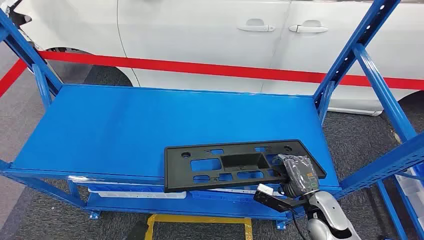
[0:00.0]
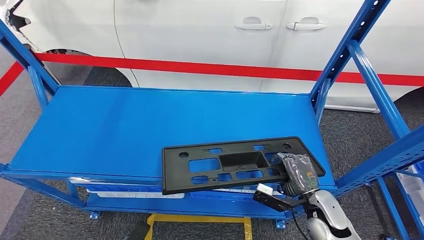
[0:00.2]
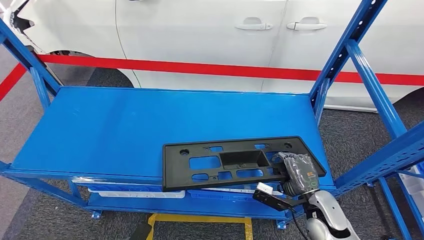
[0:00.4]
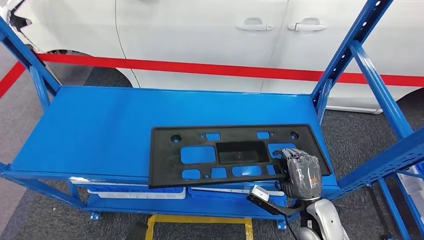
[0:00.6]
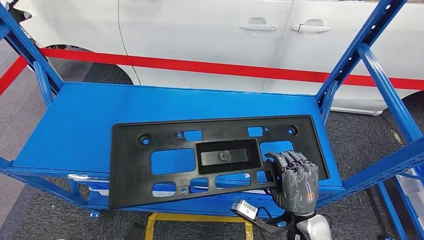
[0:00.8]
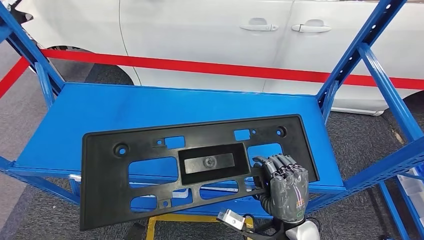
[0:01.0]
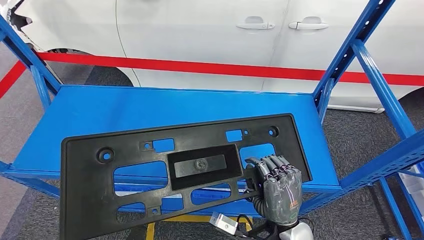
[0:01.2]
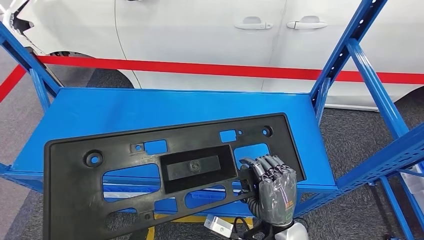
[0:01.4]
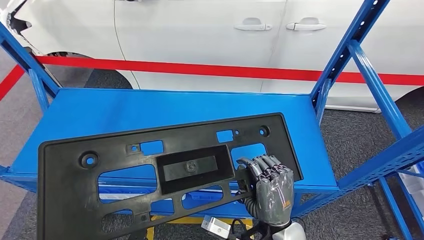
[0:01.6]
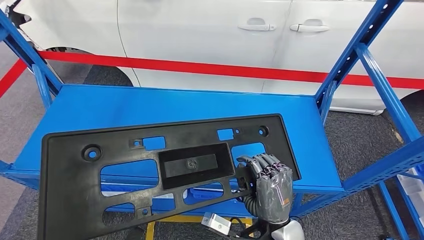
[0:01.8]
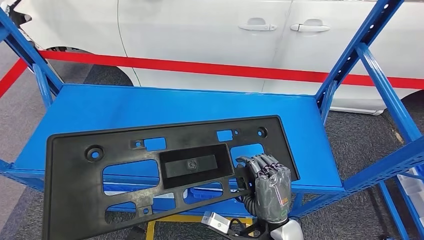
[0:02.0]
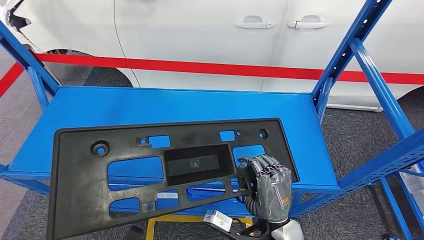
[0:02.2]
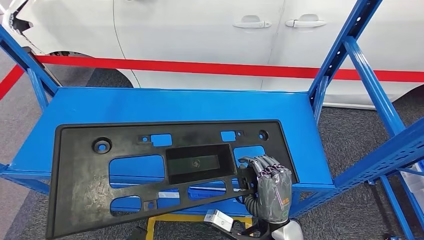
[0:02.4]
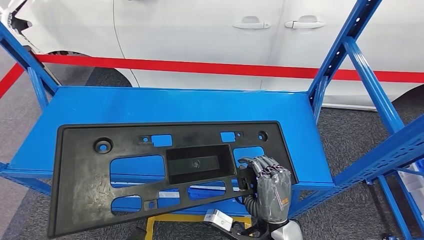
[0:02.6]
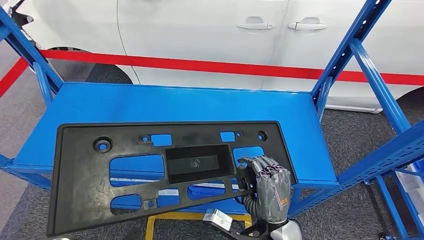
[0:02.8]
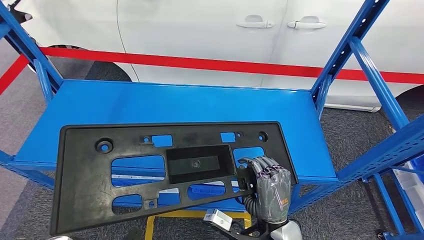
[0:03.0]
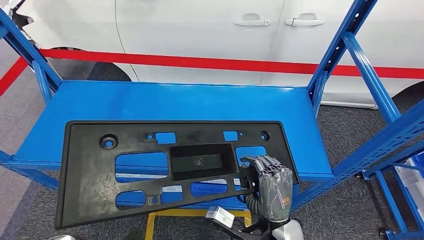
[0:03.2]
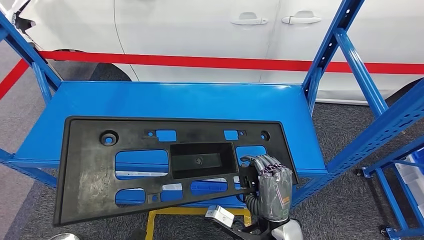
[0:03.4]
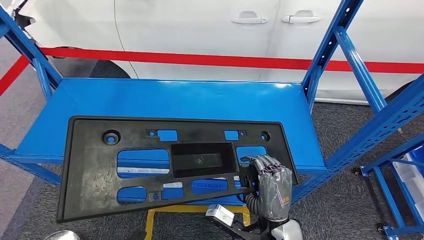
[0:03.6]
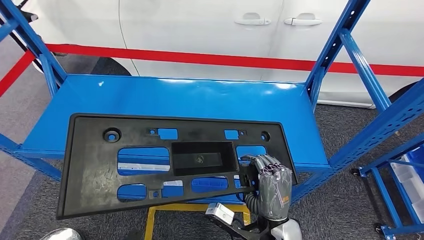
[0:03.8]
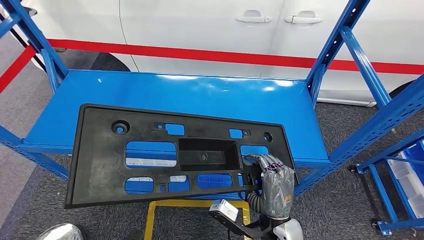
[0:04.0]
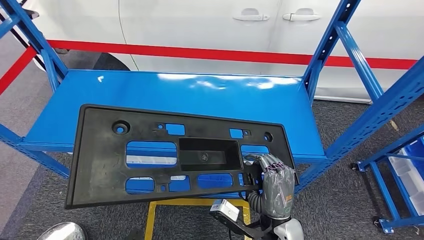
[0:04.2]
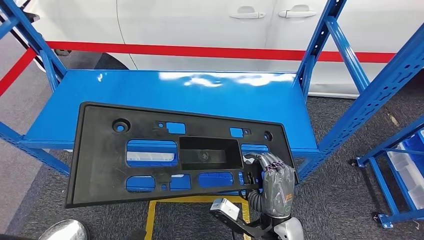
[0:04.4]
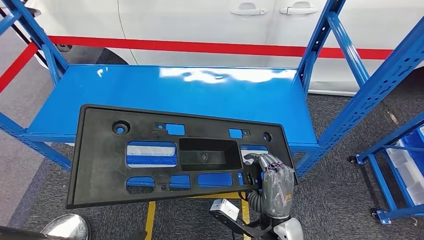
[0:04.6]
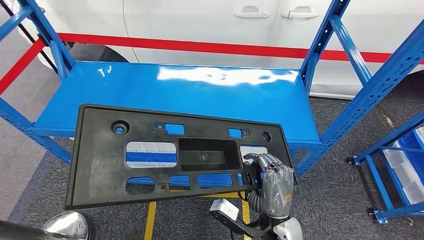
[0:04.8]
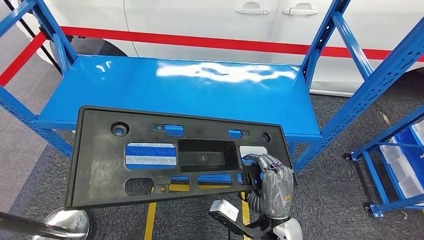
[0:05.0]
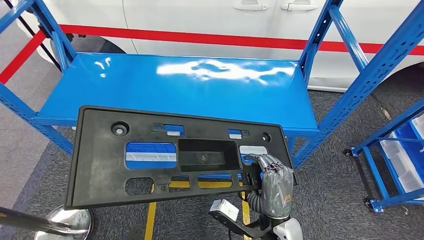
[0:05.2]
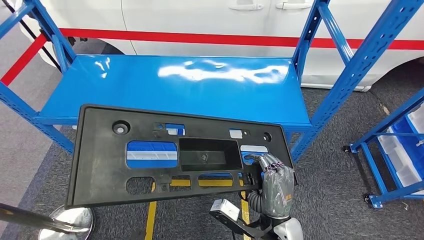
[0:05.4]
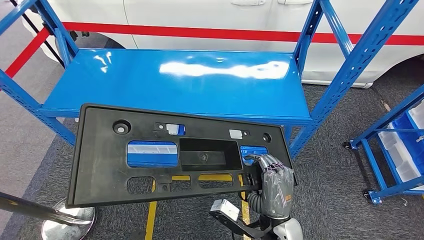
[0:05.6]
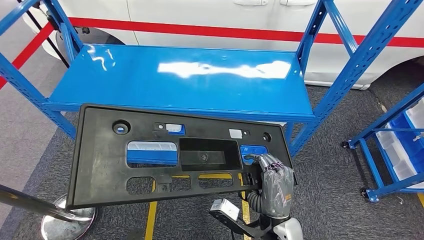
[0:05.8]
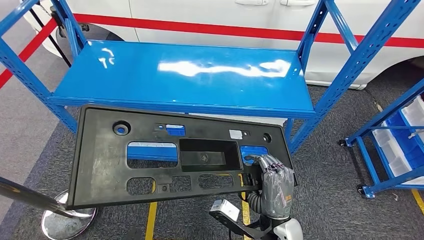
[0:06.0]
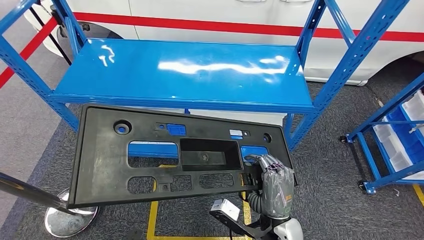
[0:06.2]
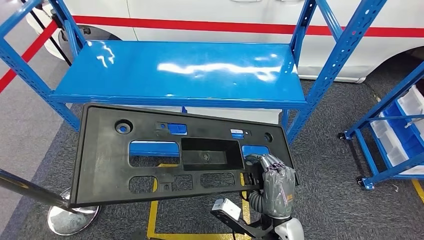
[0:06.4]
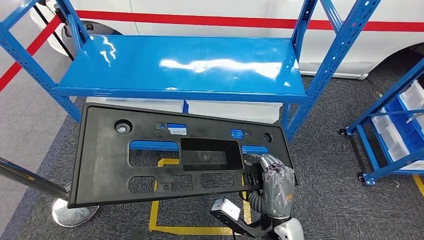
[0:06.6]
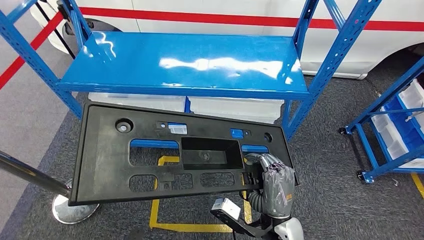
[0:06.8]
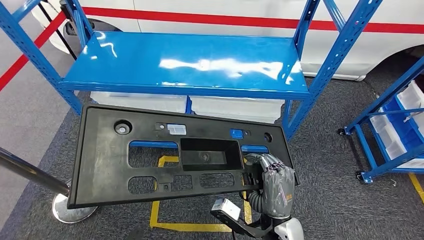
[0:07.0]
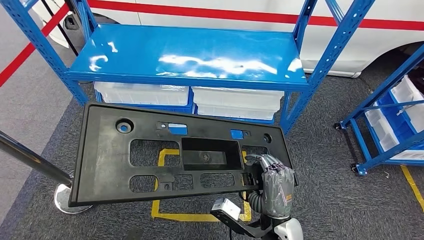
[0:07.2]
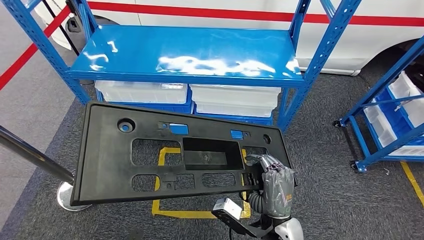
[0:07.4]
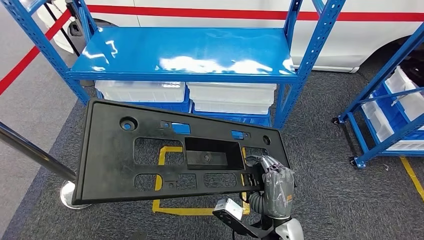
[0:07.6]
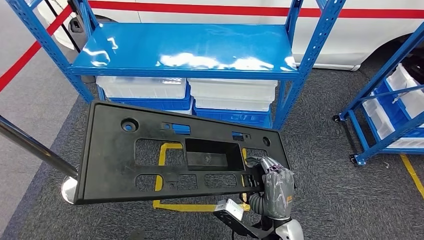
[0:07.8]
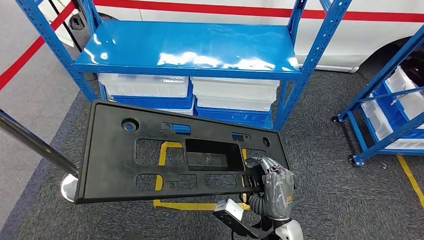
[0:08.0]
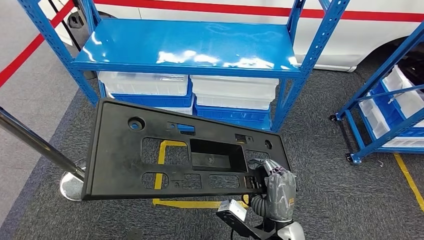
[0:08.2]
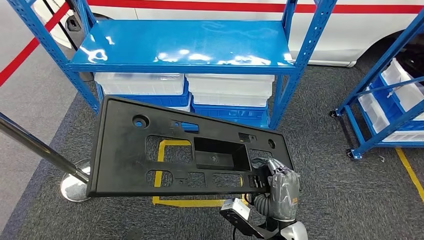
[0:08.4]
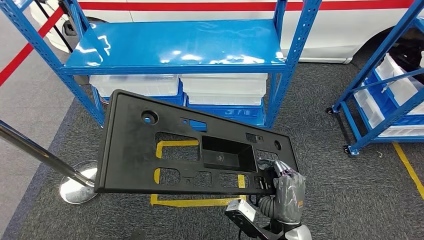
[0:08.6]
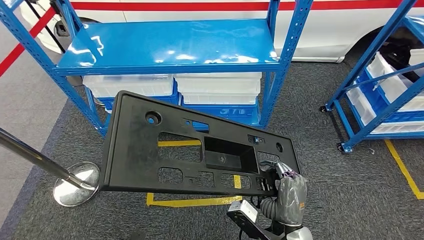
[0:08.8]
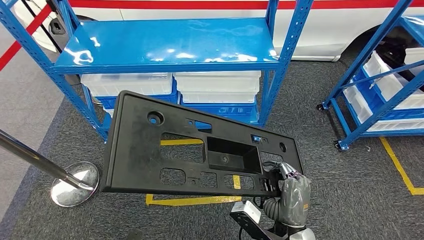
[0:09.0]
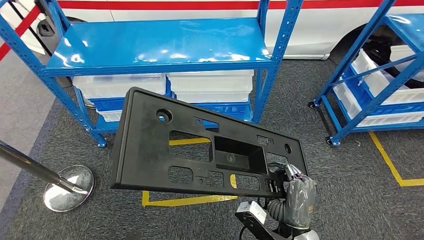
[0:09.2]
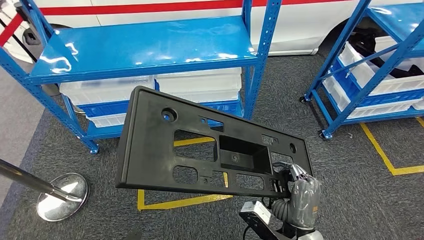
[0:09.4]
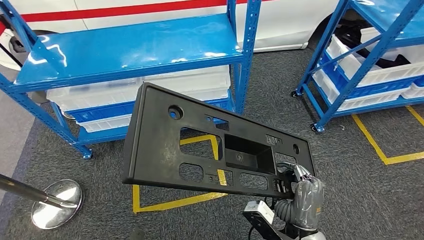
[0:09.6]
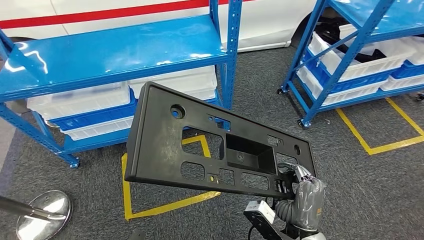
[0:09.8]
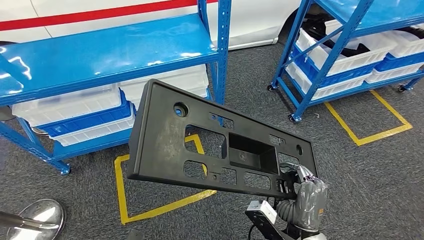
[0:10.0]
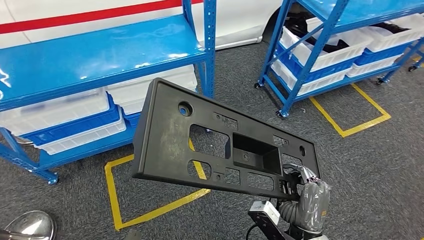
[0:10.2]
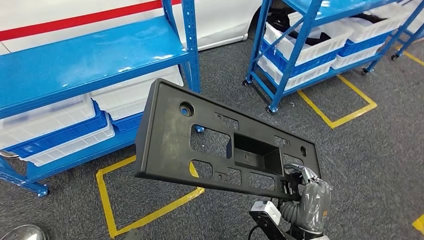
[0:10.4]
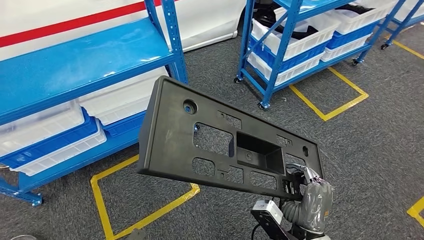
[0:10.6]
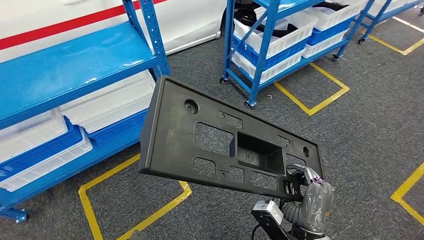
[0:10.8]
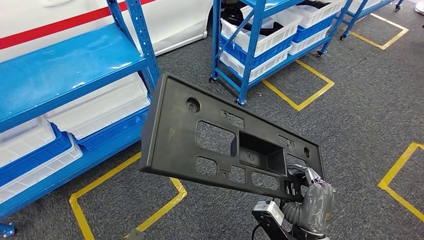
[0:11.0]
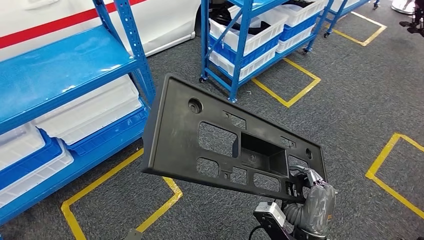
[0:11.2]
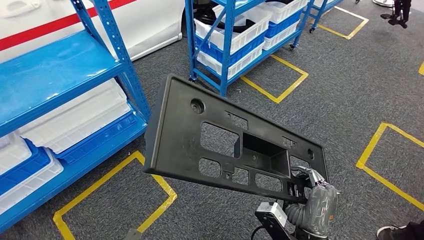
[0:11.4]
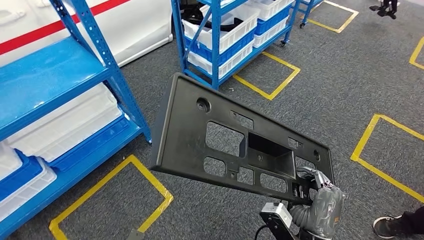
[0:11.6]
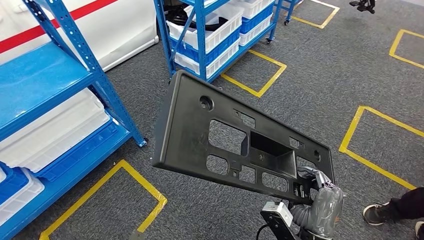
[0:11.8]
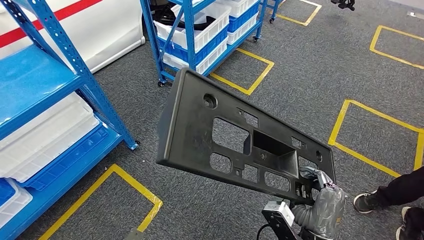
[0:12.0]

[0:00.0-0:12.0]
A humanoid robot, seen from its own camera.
Step, 0:00.0 to 0:05.0: Pick up the large material from the shelf.

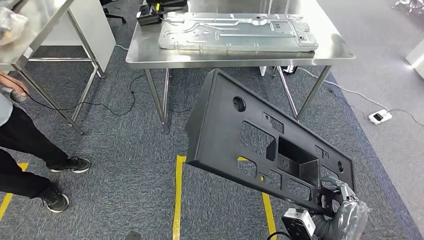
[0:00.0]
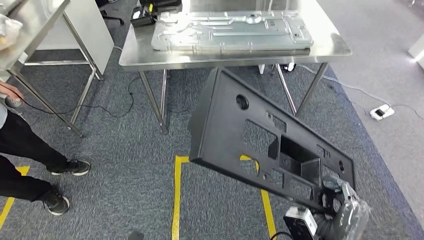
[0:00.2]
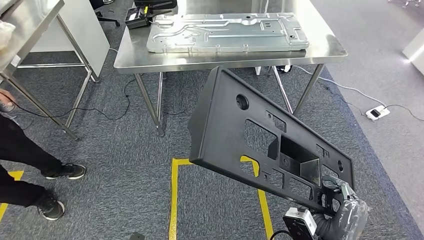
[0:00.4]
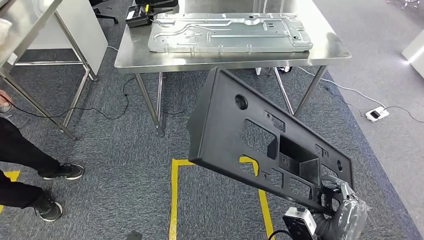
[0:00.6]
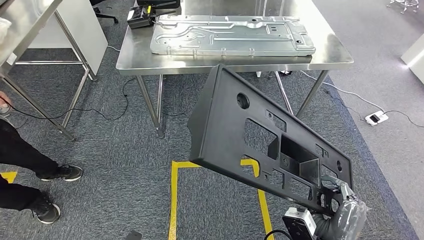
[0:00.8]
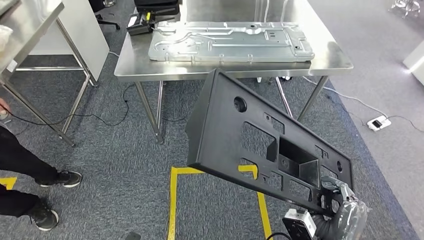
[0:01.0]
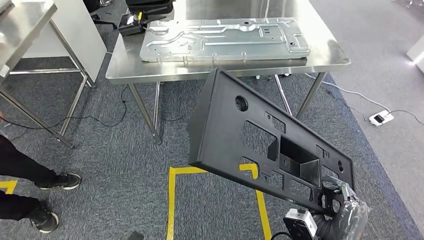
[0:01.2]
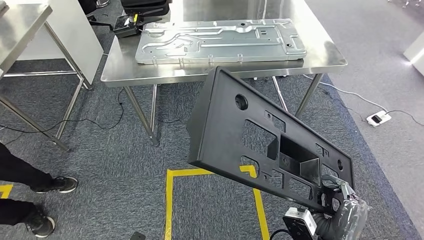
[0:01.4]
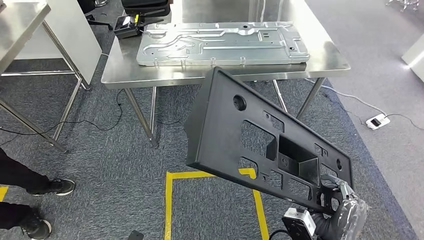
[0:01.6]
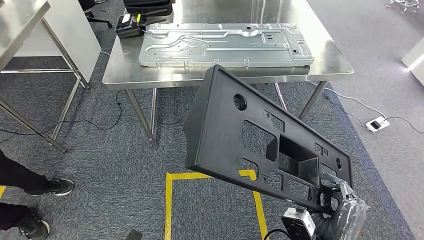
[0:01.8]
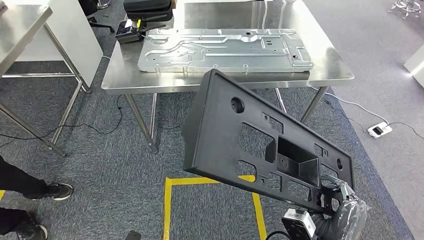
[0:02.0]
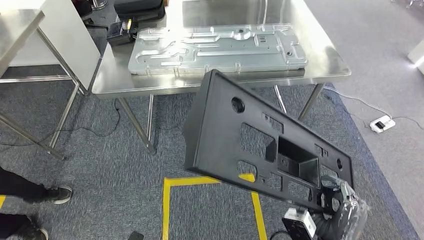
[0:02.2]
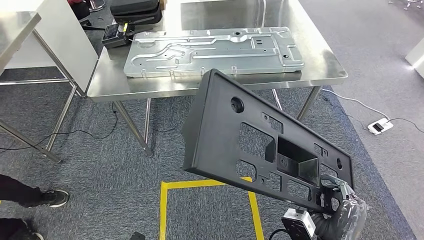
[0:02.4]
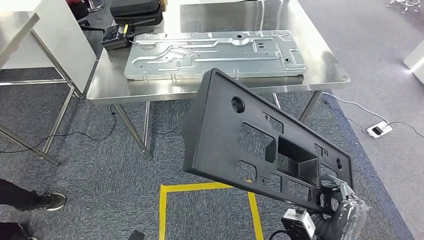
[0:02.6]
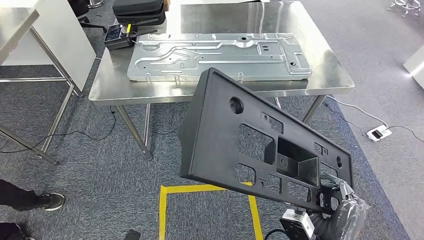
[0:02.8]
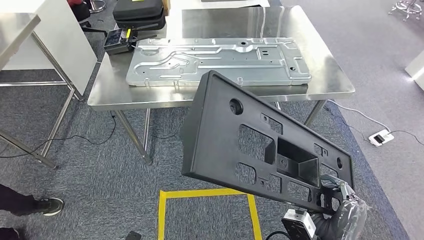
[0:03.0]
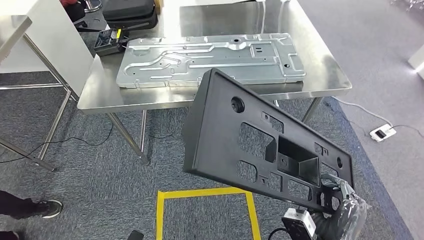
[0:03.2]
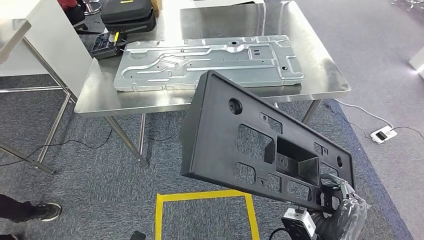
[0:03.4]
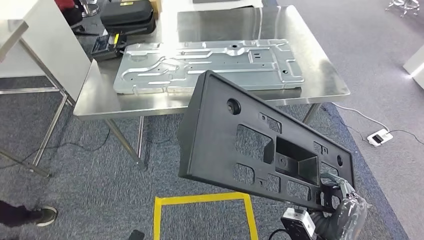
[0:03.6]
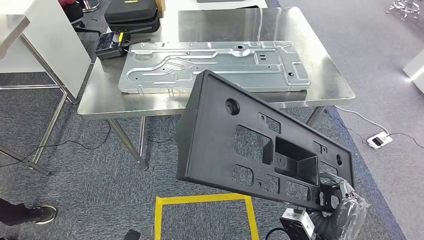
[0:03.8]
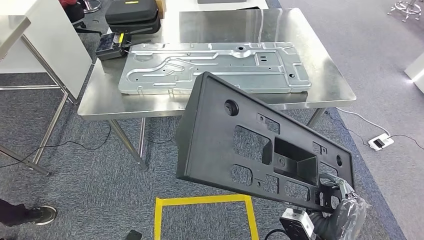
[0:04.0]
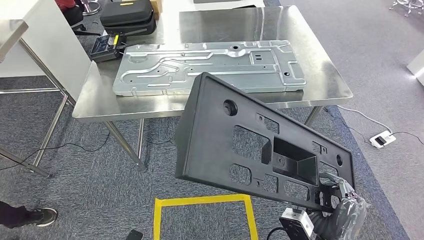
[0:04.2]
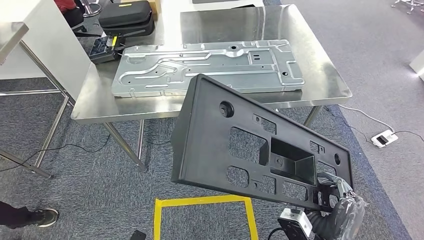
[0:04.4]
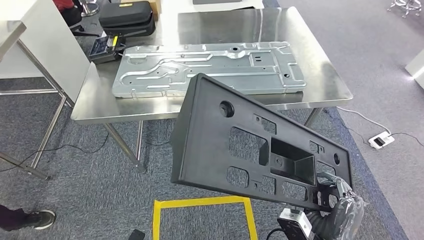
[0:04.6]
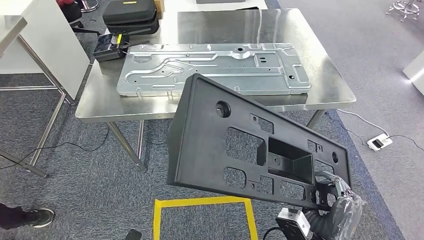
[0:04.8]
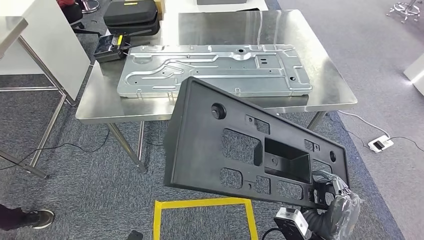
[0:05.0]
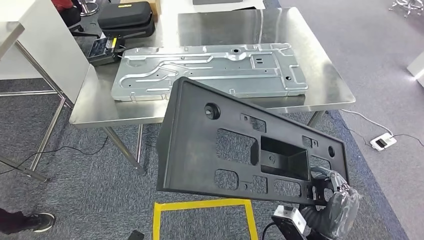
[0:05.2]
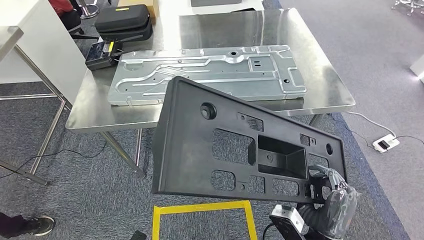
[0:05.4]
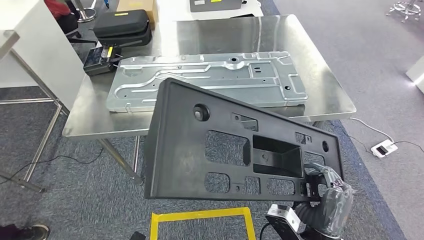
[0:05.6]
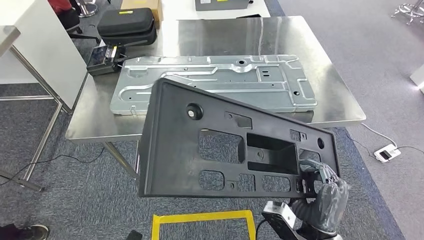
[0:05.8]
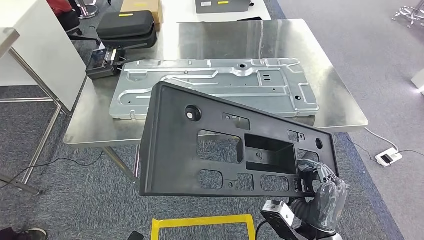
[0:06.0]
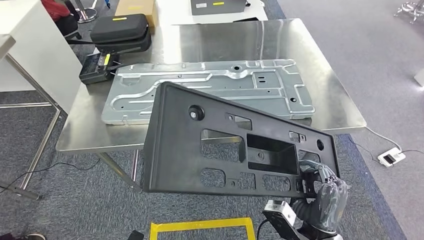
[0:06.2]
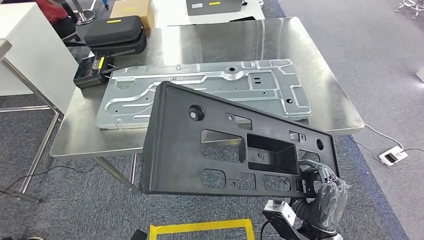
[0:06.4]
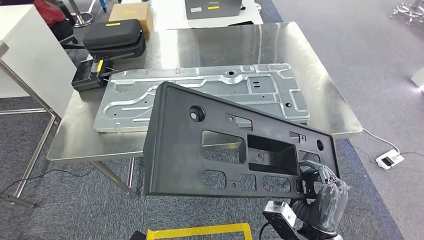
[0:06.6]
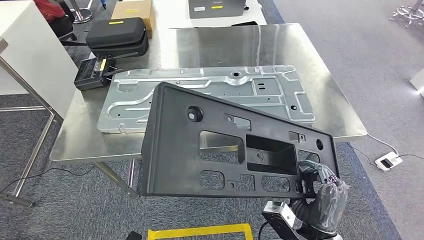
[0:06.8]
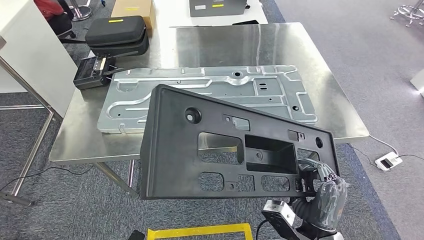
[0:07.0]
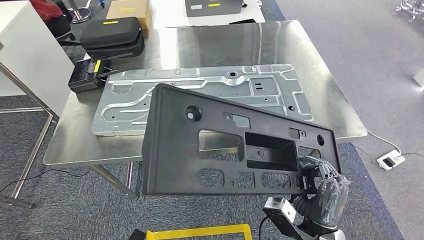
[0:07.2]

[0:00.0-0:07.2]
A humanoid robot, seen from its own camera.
Step, 0:00.0 to 0:04.2: Move the large material to the workbench.
